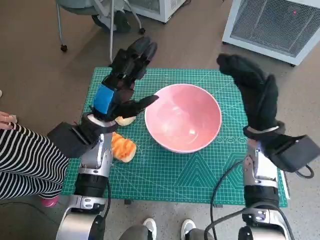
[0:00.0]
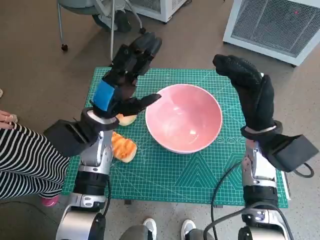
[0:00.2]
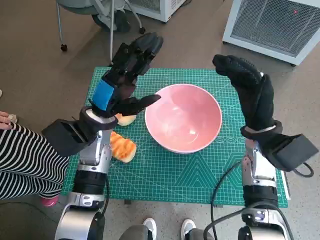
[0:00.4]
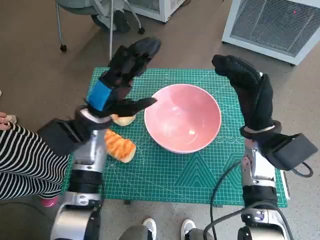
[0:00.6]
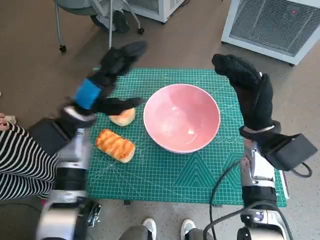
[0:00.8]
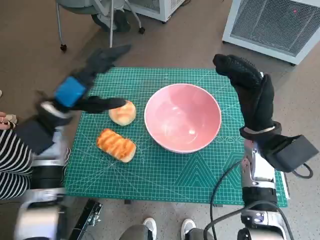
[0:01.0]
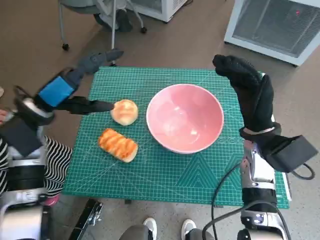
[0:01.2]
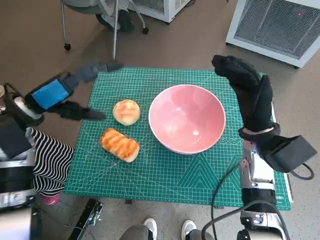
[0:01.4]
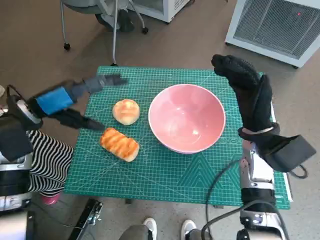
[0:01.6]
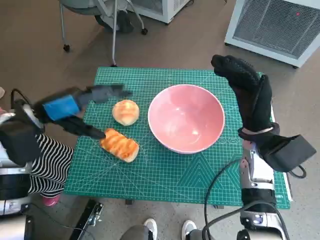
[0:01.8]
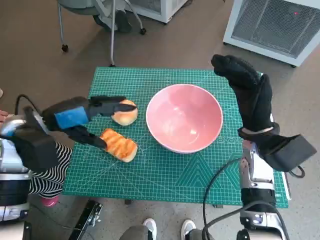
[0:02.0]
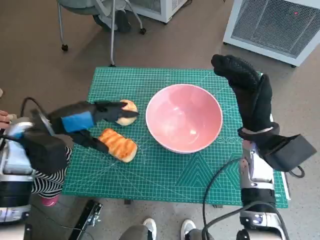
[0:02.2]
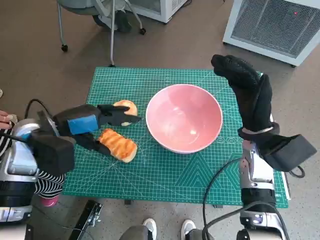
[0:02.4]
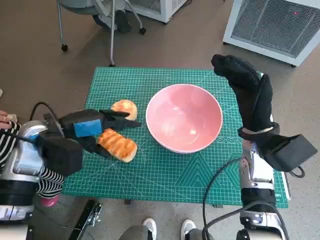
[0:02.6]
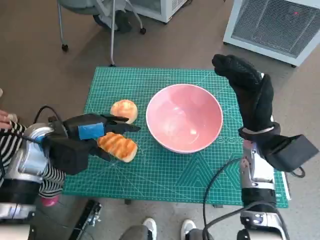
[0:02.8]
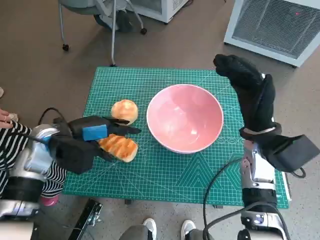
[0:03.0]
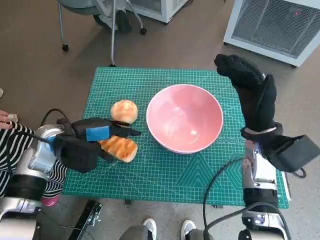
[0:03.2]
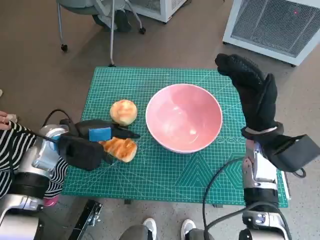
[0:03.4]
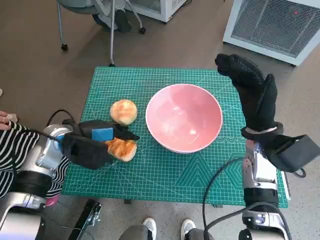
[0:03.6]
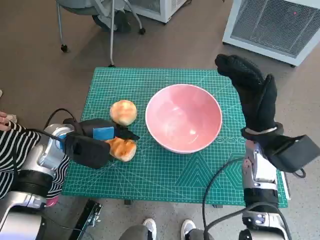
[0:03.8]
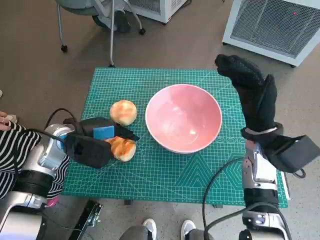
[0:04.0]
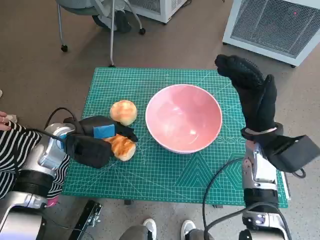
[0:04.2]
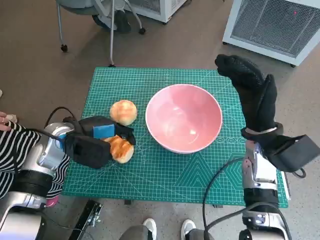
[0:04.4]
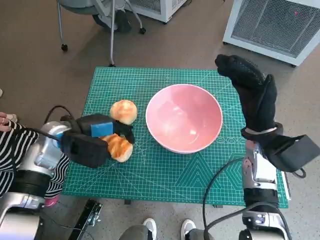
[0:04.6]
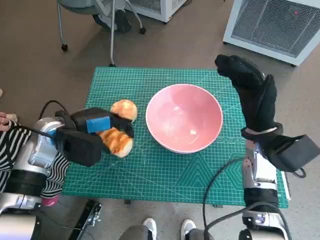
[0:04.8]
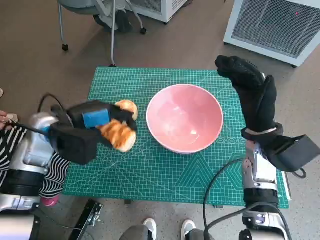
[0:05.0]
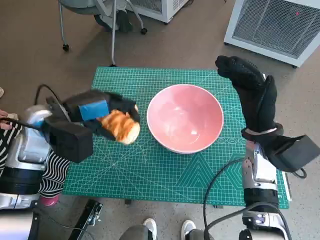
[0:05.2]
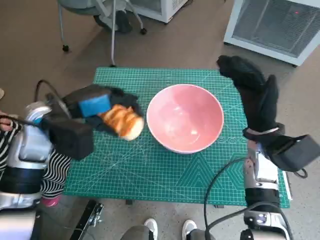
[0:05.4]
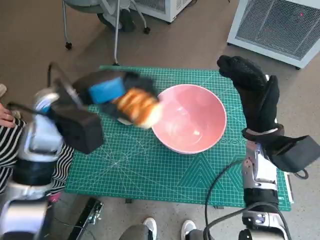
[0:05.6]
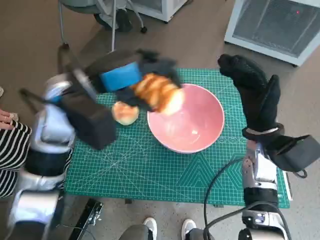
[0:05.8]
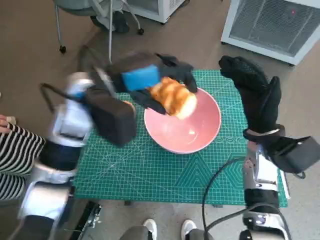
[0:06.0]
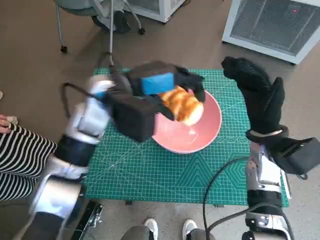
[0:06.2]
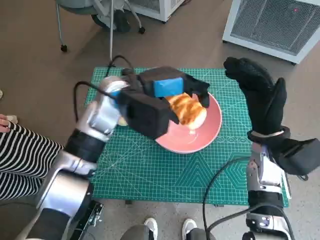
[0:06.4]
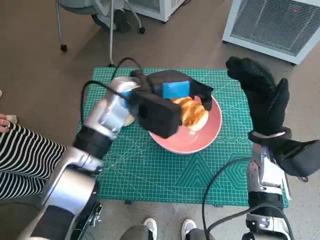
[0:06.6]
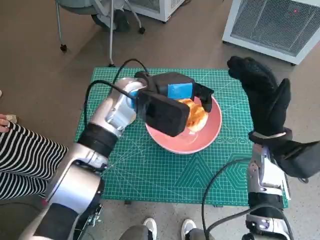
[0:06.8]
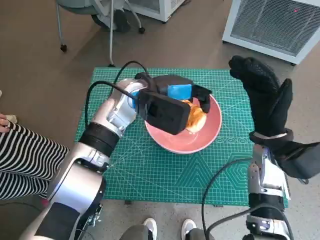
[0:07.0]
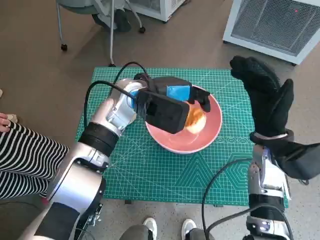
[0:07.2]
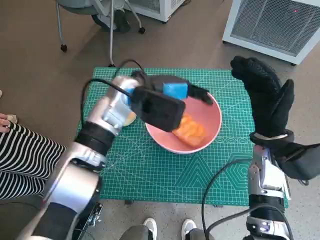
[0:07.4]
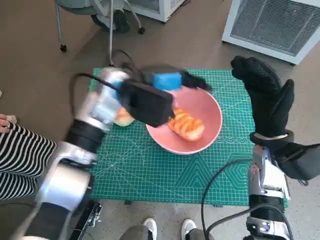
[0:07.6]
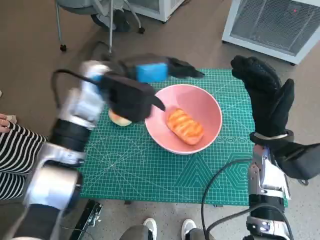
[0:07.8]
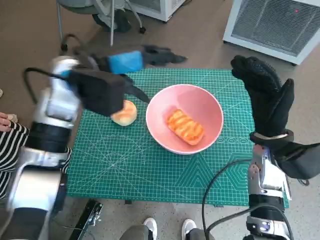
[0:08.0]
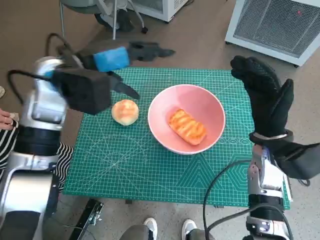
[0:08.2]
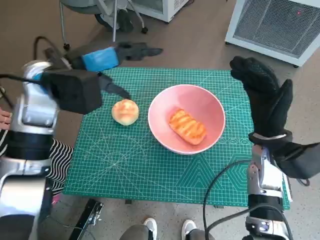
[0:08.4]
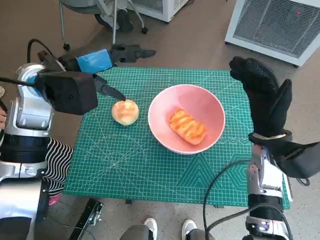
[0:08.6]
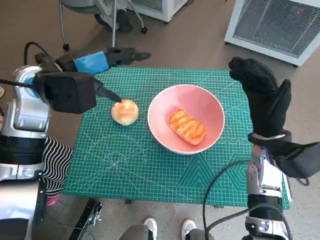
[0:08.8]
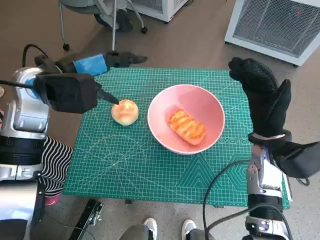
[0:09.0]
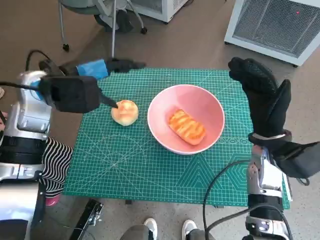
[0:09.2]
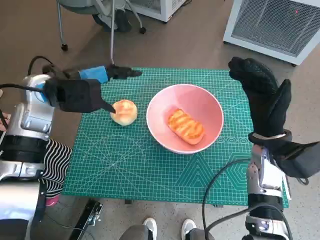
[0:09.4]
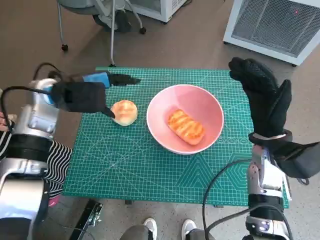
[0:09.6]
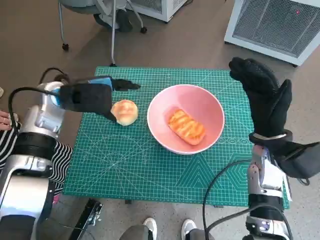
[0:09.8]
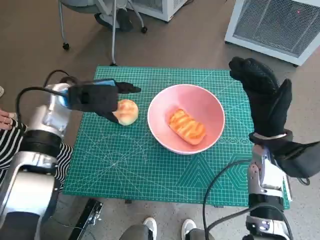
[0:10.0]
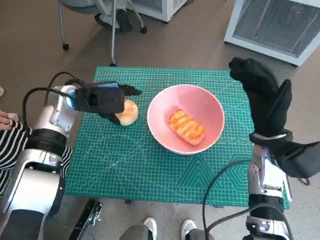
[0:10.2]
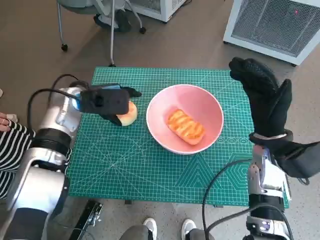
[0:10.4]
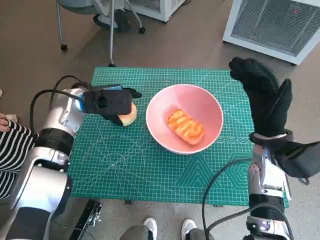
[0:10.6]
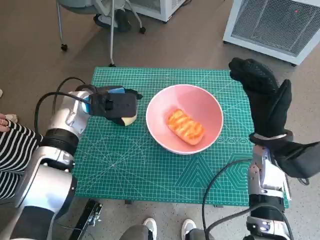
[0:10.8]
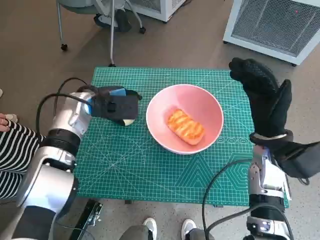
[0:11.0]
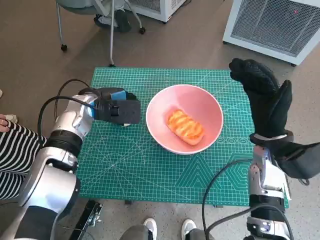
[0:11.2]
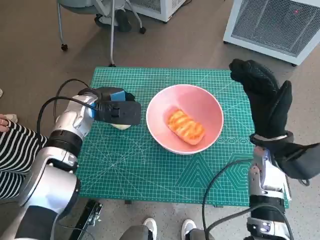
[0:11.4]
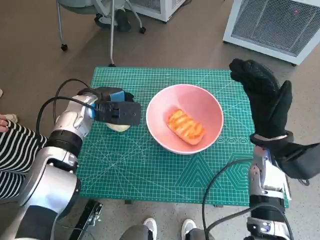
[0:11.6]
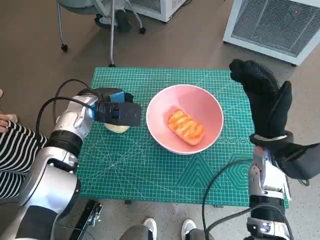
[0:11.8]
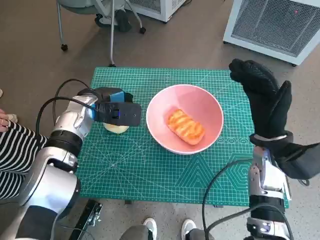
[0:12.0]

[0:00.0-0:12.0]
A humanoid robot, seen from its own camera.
Task of the whole recording: Push the bowl into the center of the table and put the bread into the bowl.
Step, 0:00.0 to 0:04.2: Grasp the long bread with left hand.
Step, 0:04.4 to 0:07.8: Place the long bread in pink bowl with left hand.
Step, 0:08.0 to 0:11.4: Grasp the round bread with left hand.
0:00.0 to 0:01.6: The left hand heads to the left and upward, covering some 15 cm.
0:01.6 to 0:03.0: The left hand moves downward, roughly 5 cm.
0:03.0 to 0:04.4: There are only small adjustments of the hands.
0:04.4 to 0:06.0: The left hand goes approximately 15 cm upward and to the right.
0:06.0 to 0:07.6: The left hand ends up some 5 cm from where it was.
0:07.6 to 0:09.0: The left hand is displaced to the left by approximately 10 cm.
0:09.0 to 0:10.4: The left hand moves downward, about 10 cm.
0:10.4 to 0:12.0: The hands stay close to where they were, moving slightly.

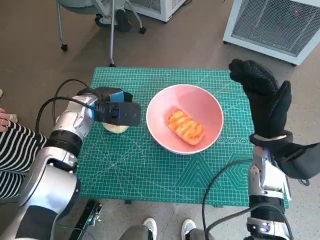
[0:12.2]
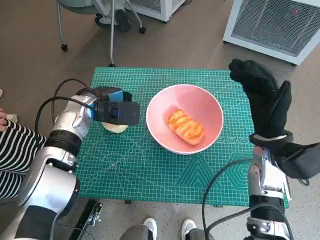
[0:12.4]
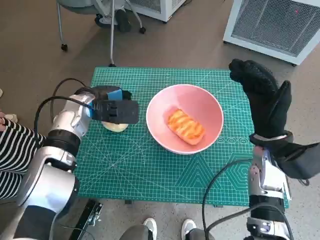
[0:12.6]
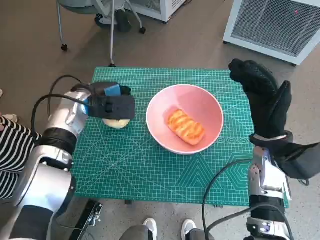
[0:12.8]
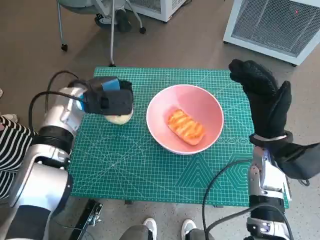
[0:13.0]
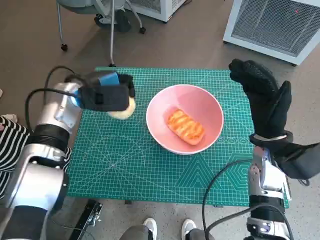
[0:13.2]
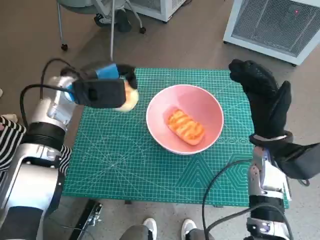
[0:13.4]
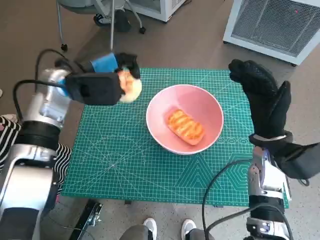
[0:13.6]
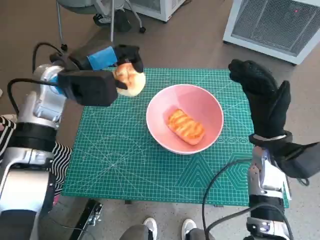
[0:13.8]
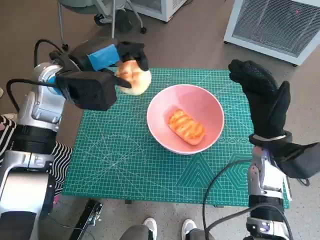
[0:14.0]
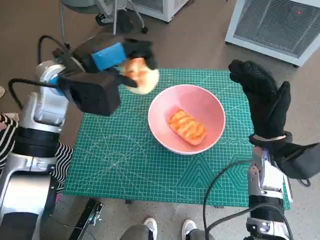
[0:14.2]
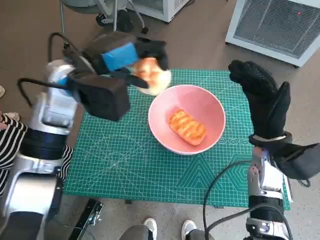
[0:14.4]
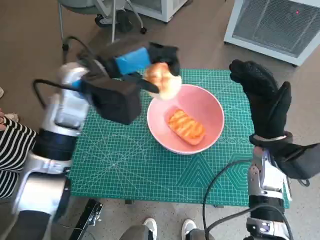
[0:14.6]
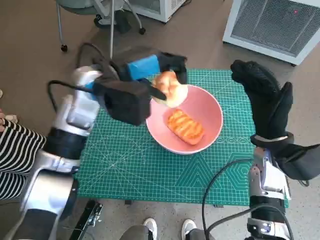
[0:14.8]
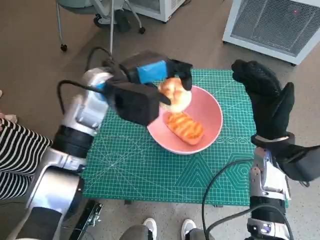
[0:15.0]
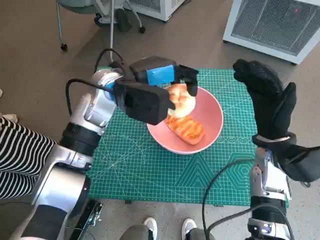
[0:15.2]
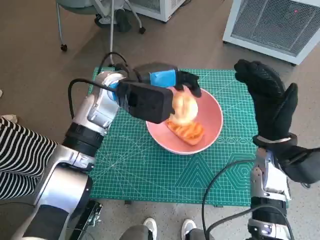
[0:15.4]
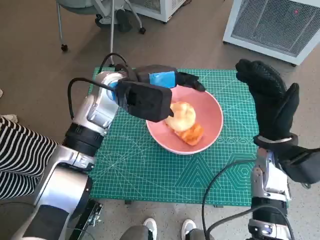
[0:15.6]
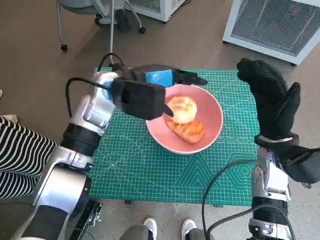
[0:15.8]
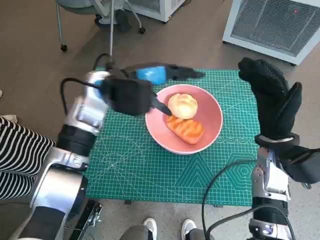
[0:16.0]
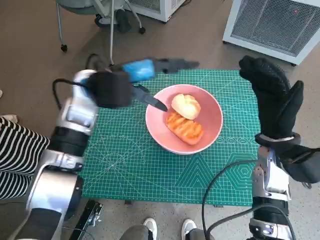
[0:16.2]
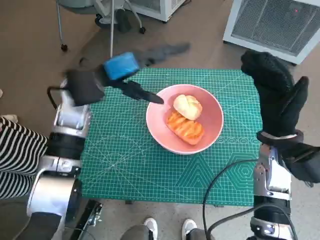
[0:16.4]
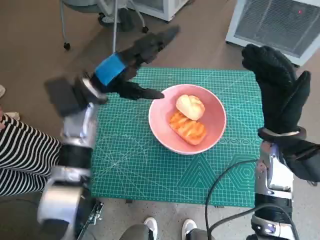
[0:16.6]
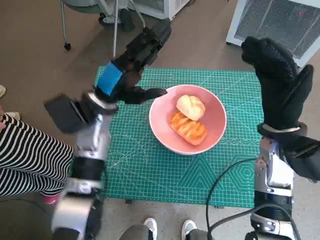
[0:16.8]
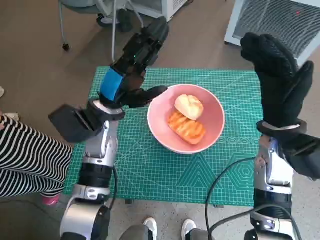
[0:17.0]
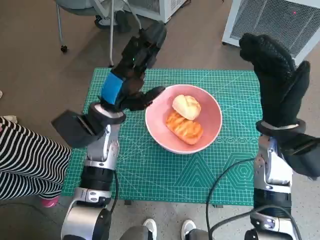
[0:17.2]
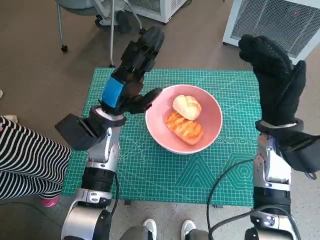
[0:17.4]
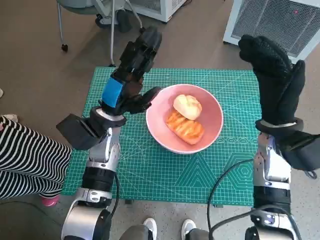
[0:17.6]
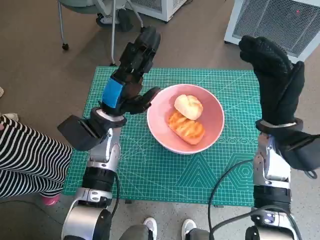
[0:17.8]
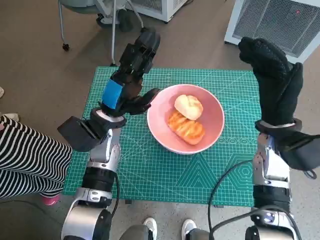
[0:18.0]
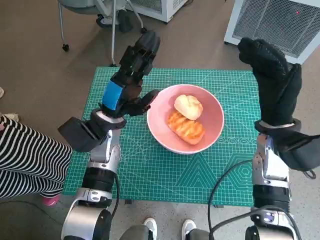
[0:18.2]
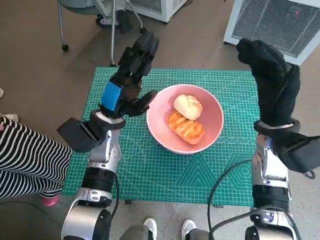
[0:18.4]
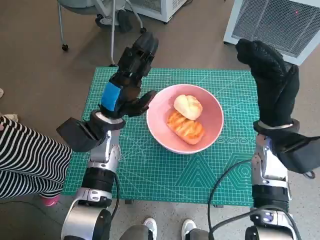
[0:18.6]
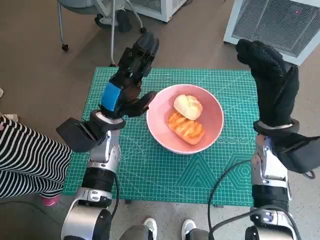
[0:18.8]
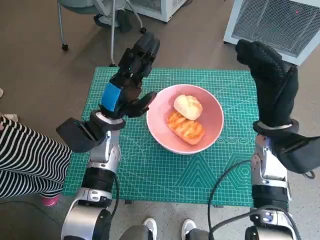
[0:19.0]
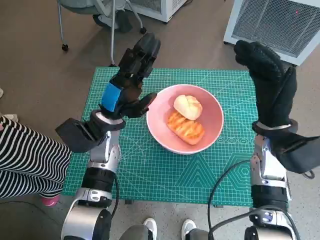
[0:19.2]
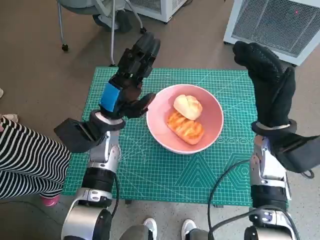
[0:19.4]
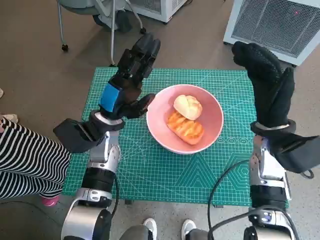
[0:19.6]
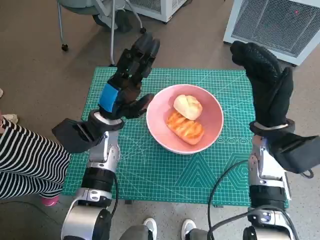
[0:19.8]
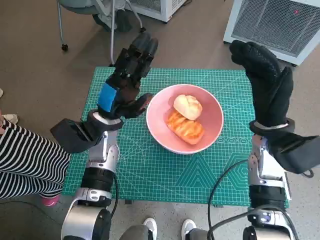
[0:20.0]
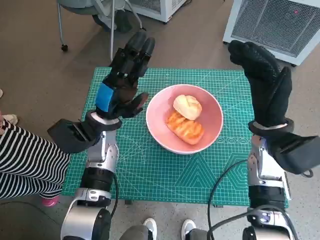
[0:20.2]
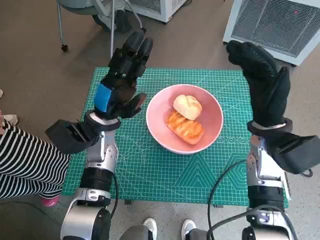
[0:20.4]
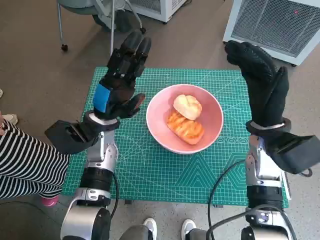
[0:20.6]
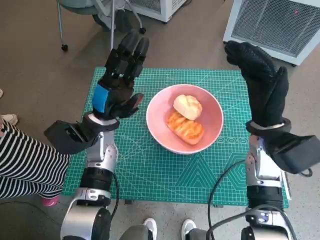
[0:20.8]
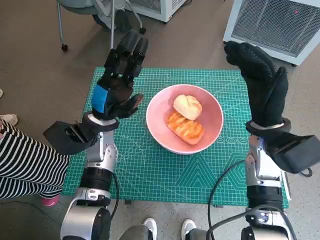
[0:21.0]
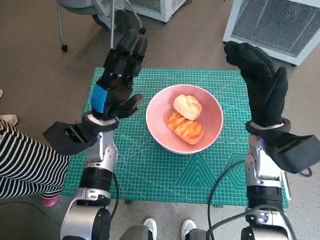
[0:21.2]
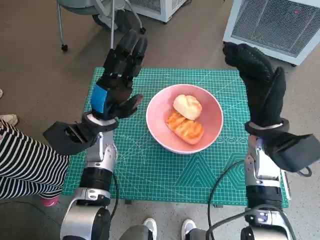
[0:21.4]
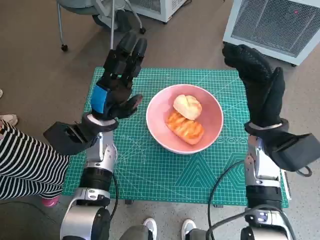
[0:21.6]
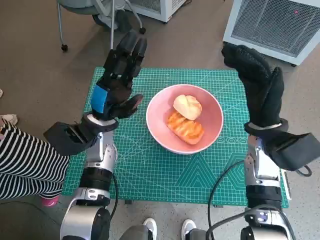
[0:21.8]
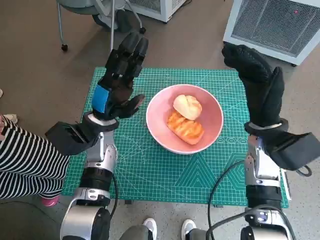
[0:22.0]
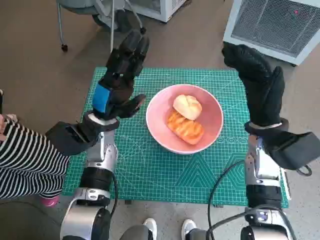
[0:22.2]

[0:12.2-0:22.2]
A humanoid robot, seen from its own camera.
Task of the whole recording: Push the bowl into the center of the table and put the bread into the bowl.
Step, 0:12.2 to 0:16.0: Place the round bread in pink bowl with left hand.
0:12.2 to 0:13.6: The left hand is displaced upward by some 10 cm.
0:13.6 to 0:15.0: The left hand heads to the right, covering about 10 cm.
0:16.4 to 0:18.0: The left hand goes some 10 cm downward.
0:18.0 to 0:19.4: Neither hand changes place.
0:19.4 to 0:20.8: The two hands keep their place.
0:20.8 to 0:22.2: Both hands stay about where they are.
